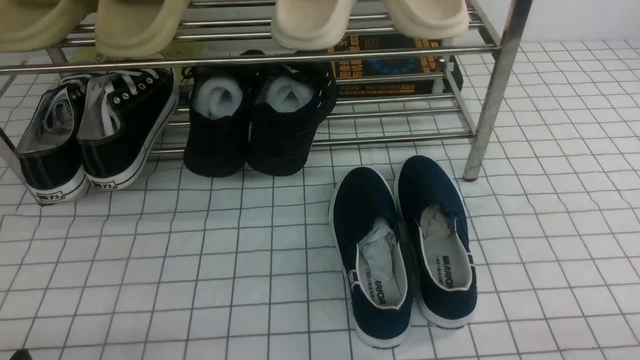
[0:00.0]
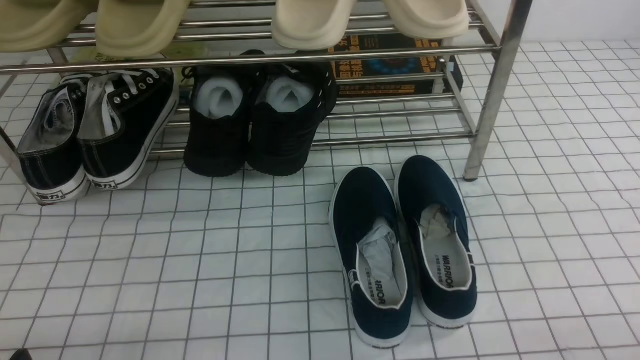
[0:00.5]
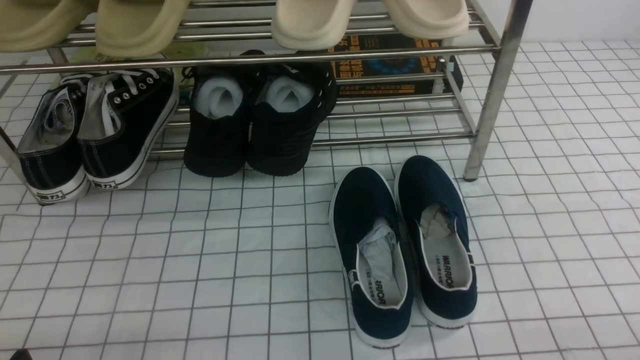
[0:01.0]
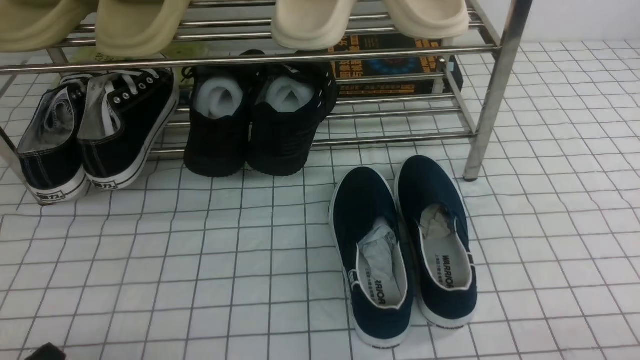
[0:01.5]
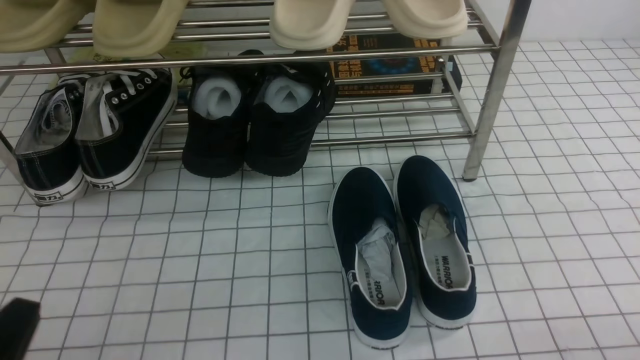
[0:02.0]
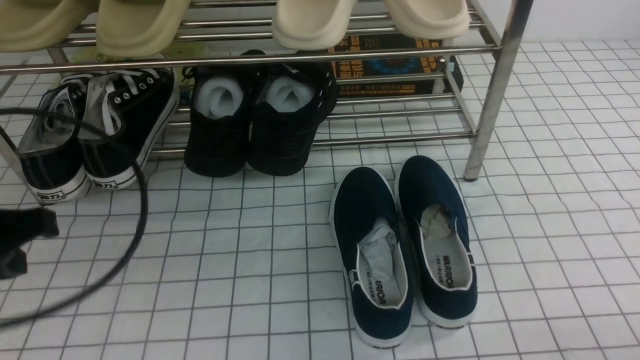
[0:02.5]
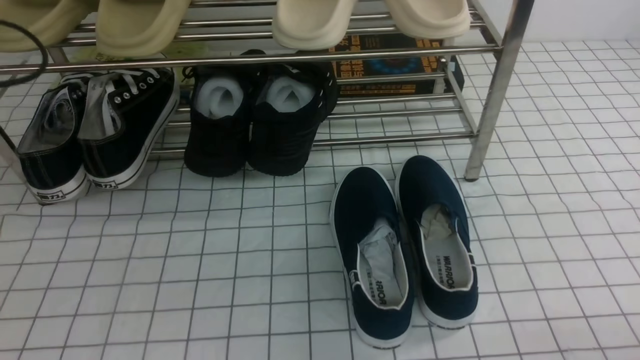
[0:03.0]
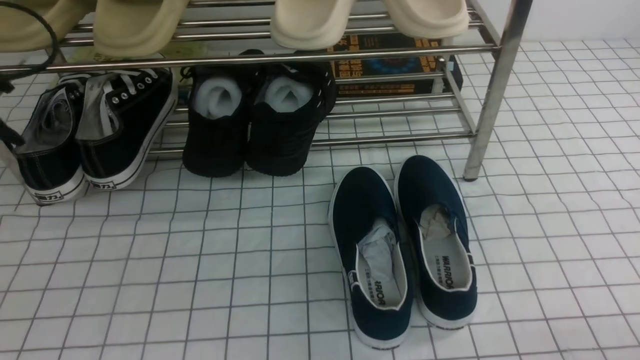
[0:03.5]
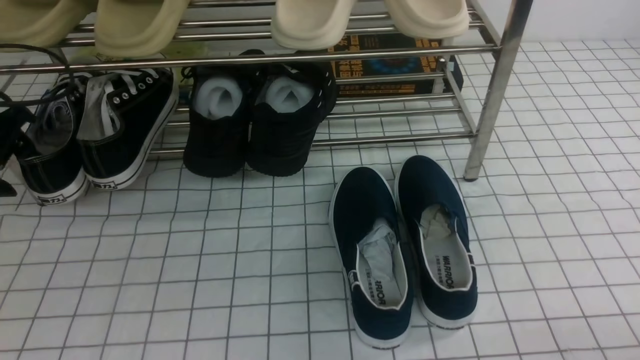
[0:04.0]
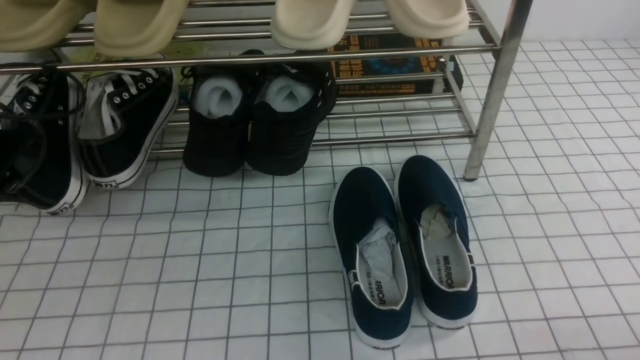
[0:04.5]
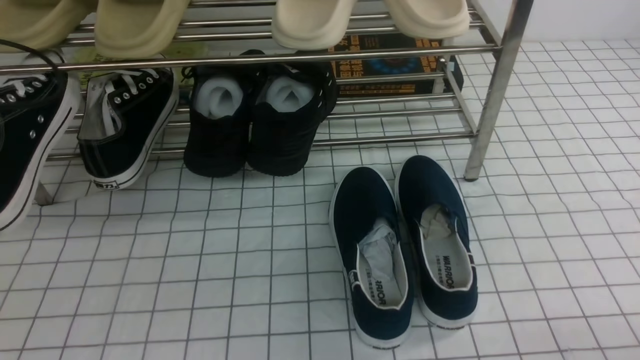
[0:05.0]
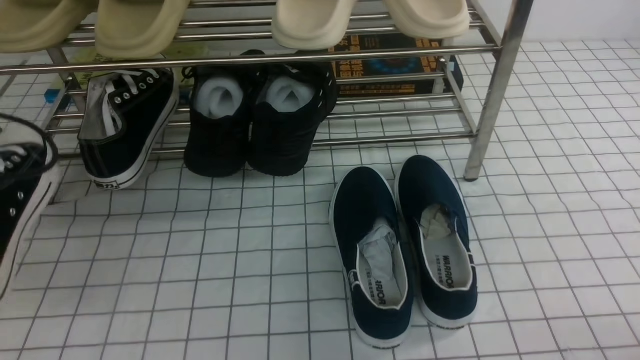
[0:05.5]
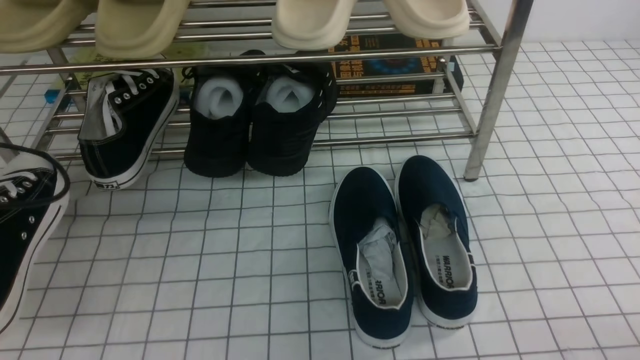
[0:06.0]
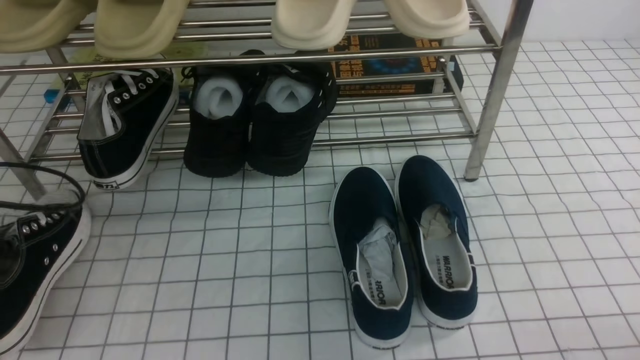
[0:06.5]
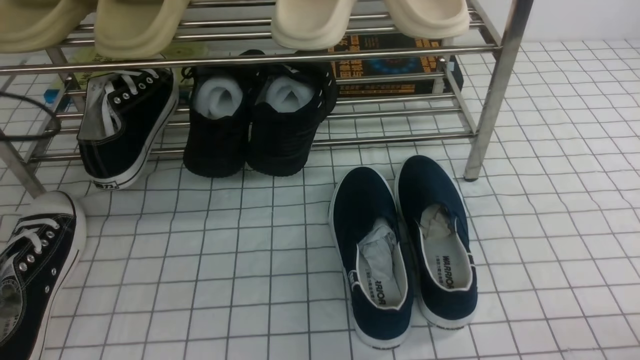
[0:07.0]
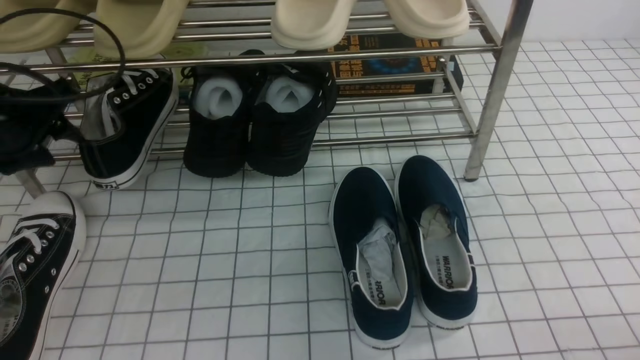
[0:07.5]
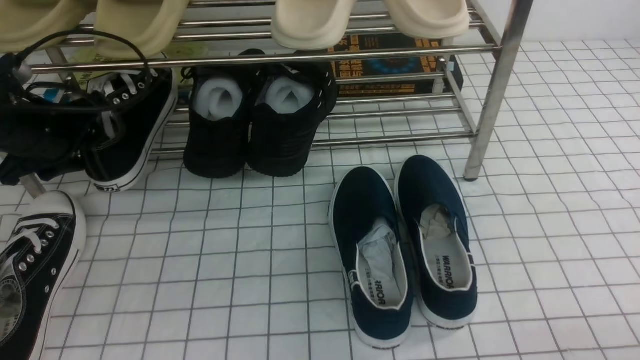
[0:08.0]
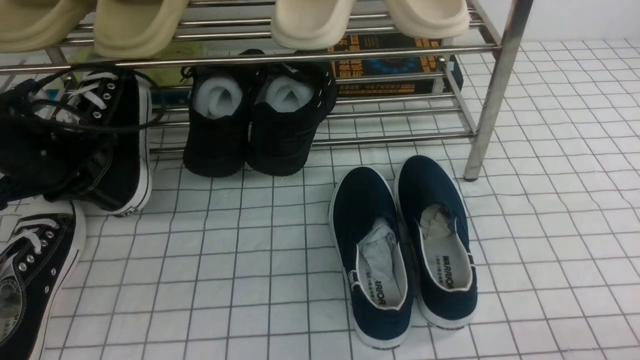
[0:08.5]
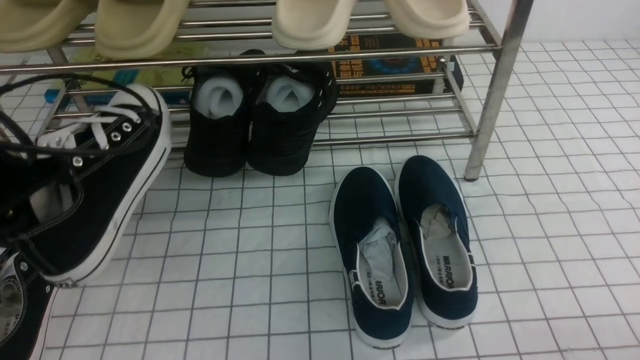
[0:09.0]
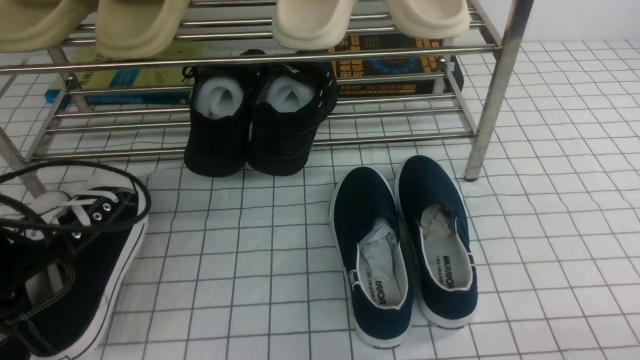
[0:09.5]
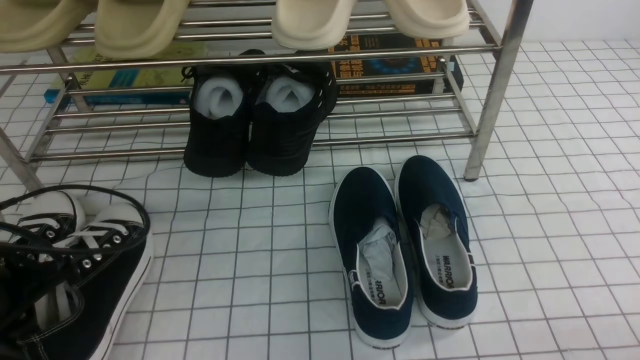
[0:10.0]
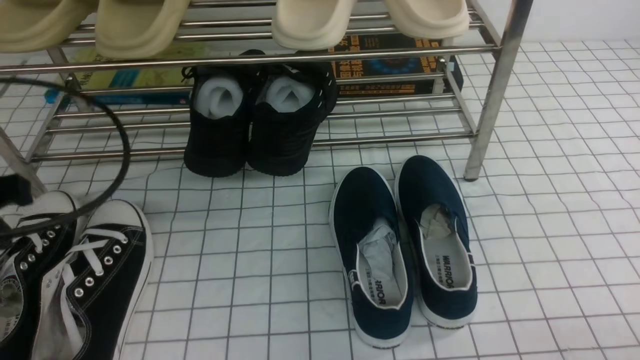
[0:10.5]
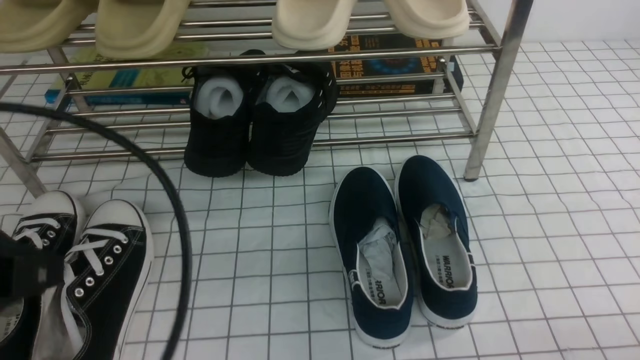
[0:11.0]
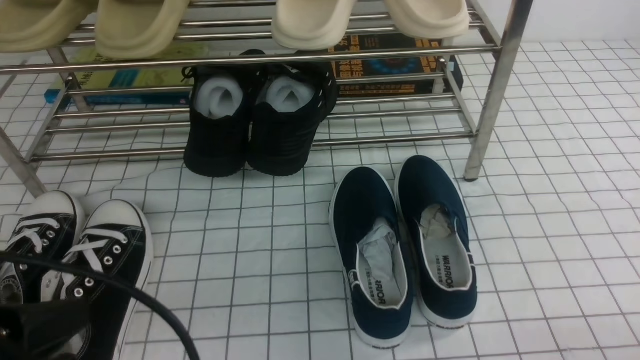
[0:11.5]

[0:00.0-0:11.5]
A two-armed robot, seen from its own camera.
Step, 0:00.0 to 0:04.0: use the left arm to clamp a shoe on the left side of the shoe rack.
Step, 0:04.5 to 0:06.5: Use your left arm to remove the clamped shoe from the shoe rack and put it down.
Step, 0:07.0 to 0:08.0: use the left arm to clamp a shoe on the left side of the shoe rack.
Step, 0:08.5 to 0:10.5: Use your left arm to remove the clamped shoe from the shoe rack and put it down.
0:00.0 to 0:02.0: The left gripper goes approximately 5 cm upward.
0:02.0 to 0:04.0: The right gripper opens its fingers. The left gripper shifts some 35 cm forward and to the left, and opens.
0:04.0 to 0:06.0: The left gripper shifts approximately 15 cm backward, and closes up.
0:06.0 to 0:07.5: The left gripper is displaced forward by some 10 cm, and opens its fingers.
0:07.5 to 0:09.5: The left gripper shifts approximately 10 cm backward, and closes.
0:09.5 to 0:11.5: The left gripper travels backward, upward and to the right by some 15 cm, and opens, then closes once more.

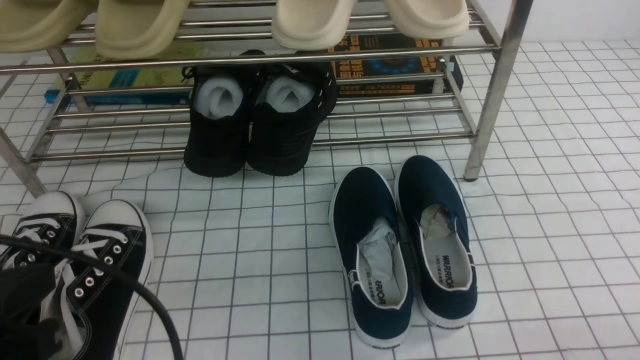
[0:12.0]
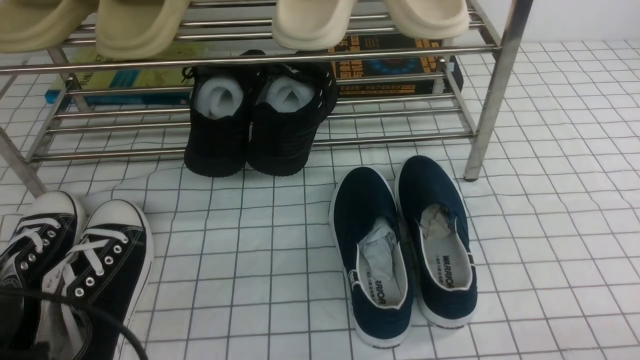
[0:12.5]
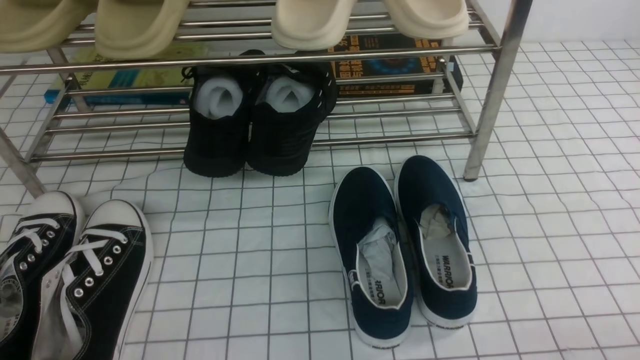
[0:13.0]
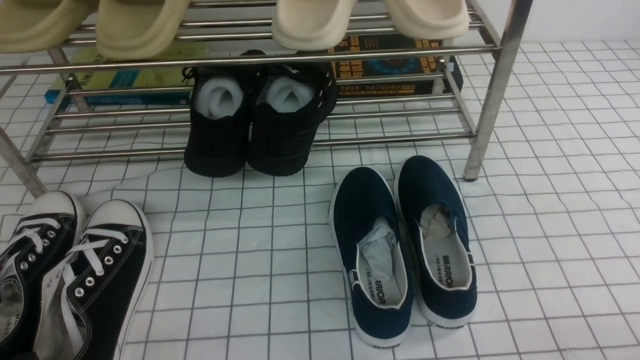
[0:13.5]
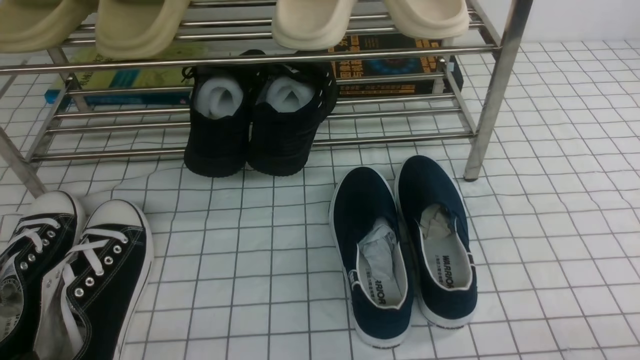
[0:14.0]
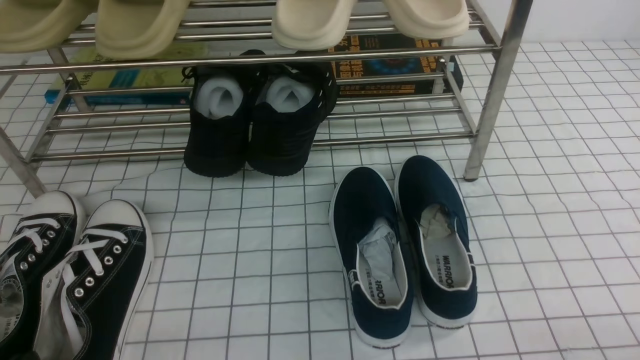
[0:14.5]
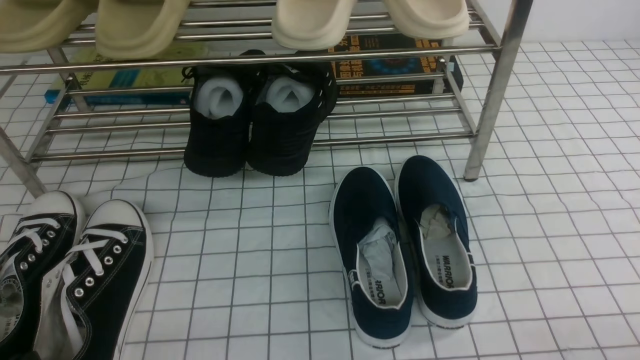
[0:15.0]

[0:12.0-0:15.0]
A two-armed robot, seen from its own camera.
0:12.0 to 0:13.5: The left gripper goes about 10 cm downward.
0:13.5 to 0:15.0: Both grippers stay about where they are.
